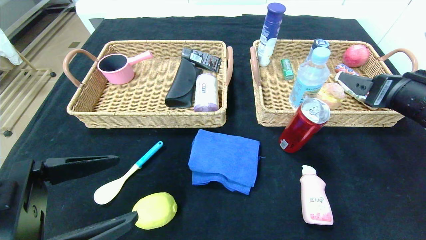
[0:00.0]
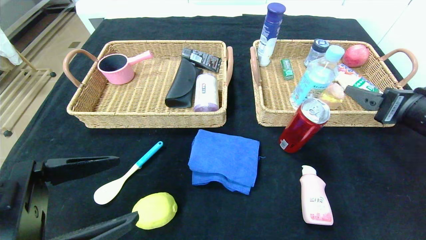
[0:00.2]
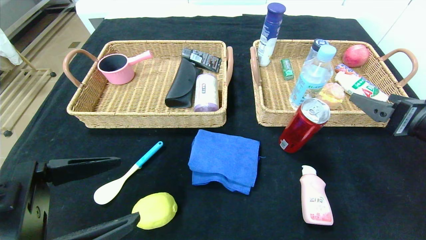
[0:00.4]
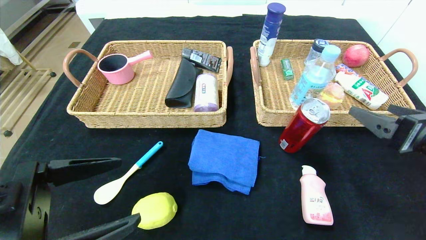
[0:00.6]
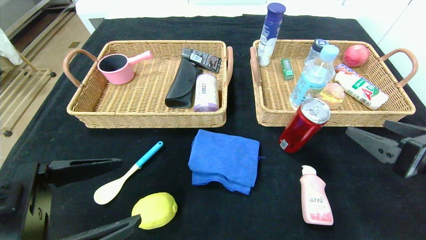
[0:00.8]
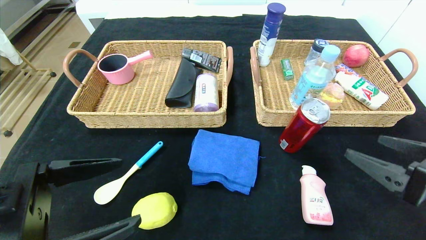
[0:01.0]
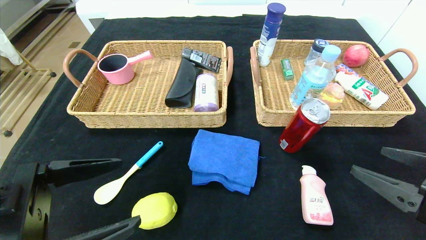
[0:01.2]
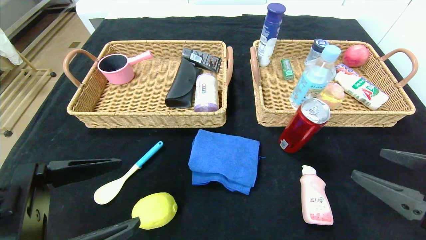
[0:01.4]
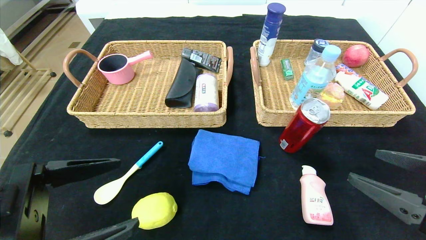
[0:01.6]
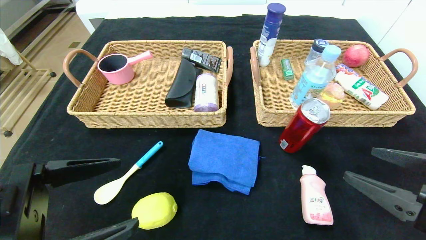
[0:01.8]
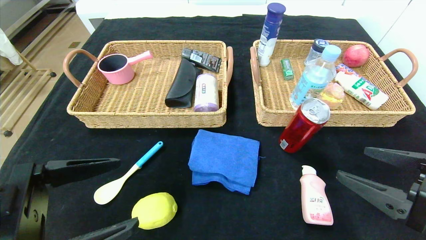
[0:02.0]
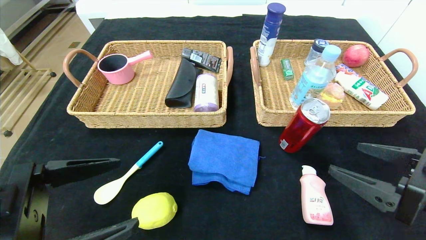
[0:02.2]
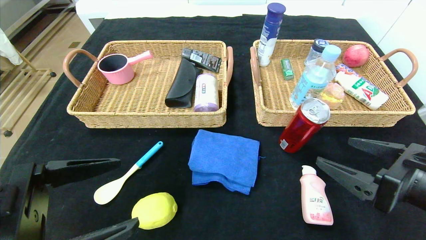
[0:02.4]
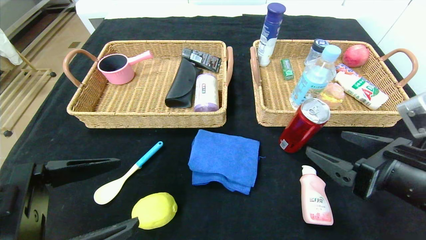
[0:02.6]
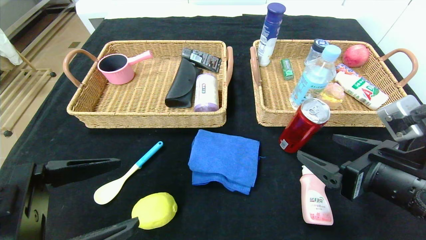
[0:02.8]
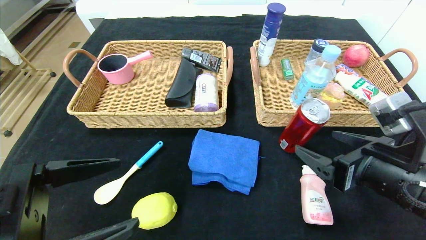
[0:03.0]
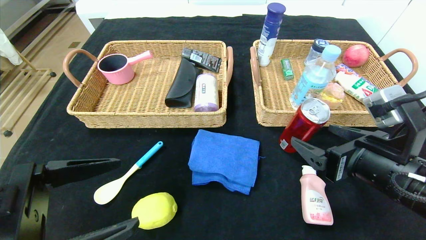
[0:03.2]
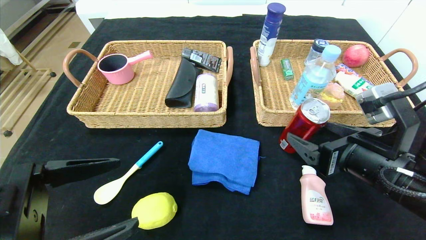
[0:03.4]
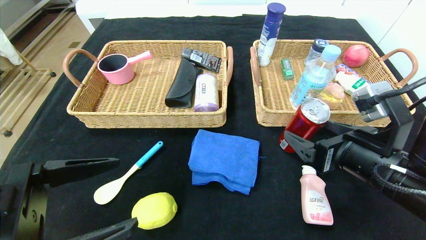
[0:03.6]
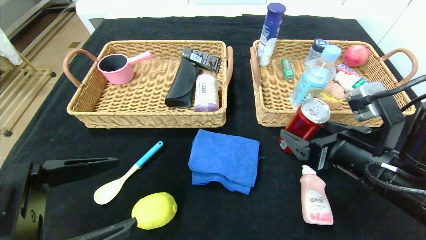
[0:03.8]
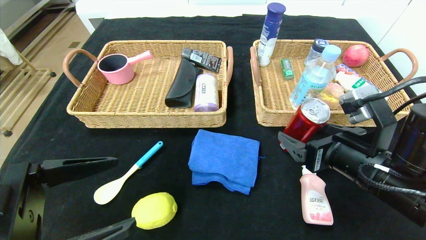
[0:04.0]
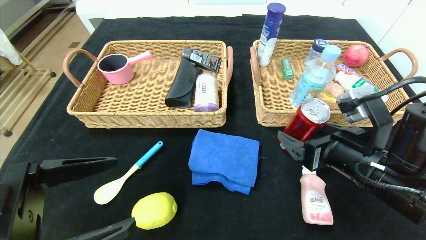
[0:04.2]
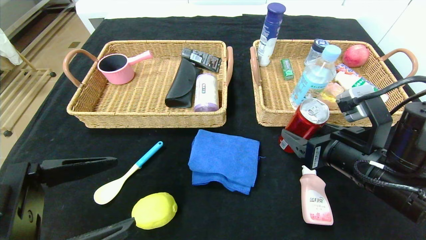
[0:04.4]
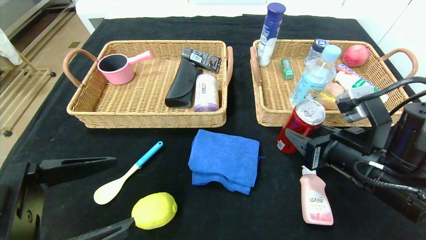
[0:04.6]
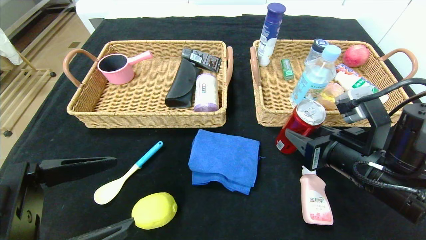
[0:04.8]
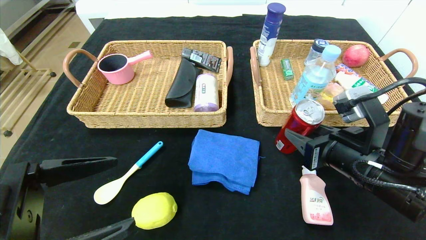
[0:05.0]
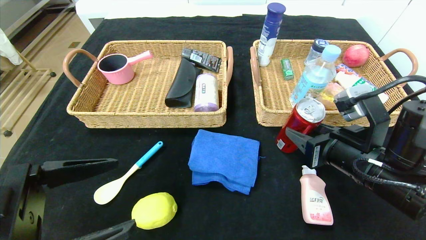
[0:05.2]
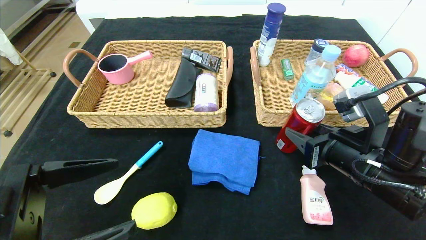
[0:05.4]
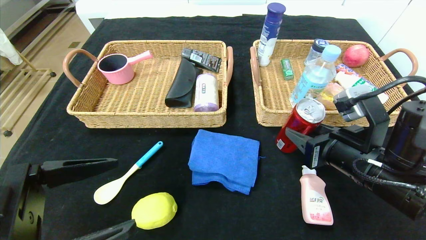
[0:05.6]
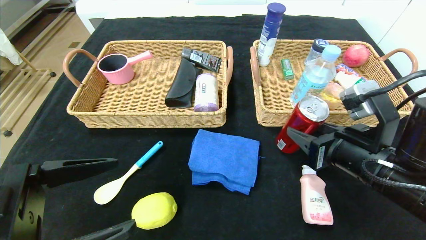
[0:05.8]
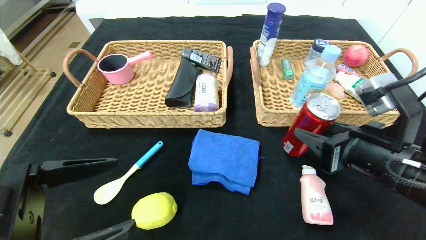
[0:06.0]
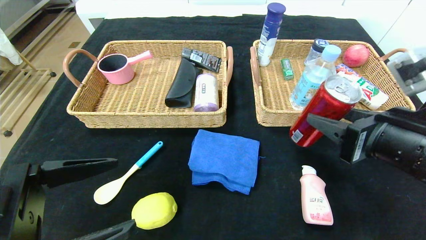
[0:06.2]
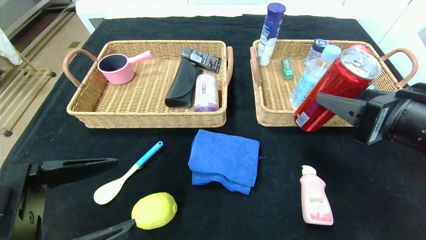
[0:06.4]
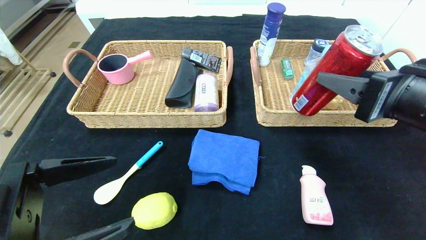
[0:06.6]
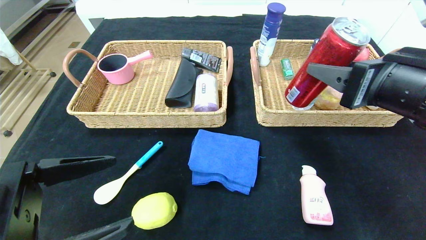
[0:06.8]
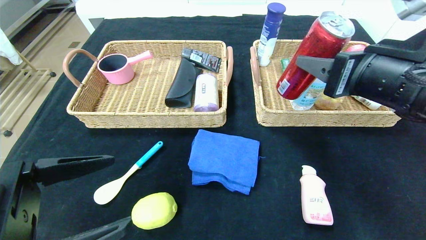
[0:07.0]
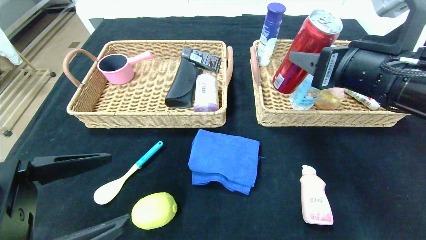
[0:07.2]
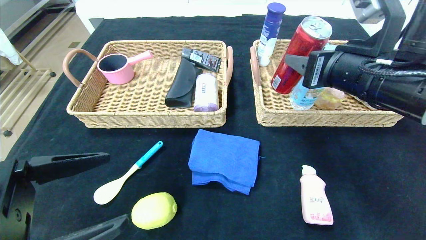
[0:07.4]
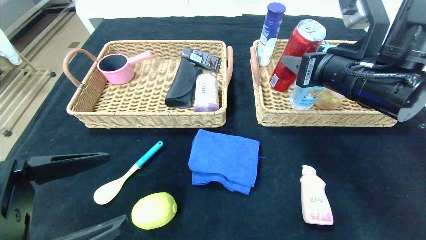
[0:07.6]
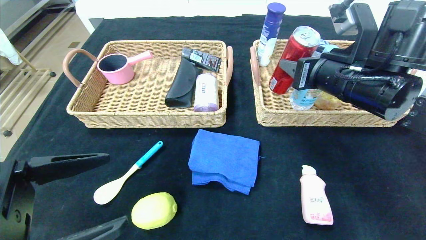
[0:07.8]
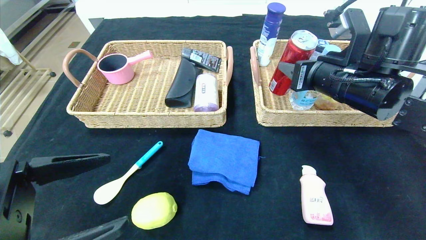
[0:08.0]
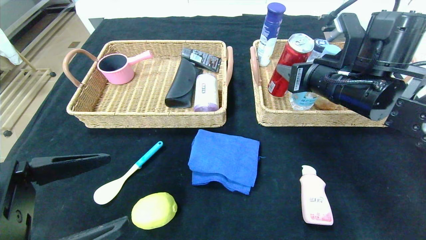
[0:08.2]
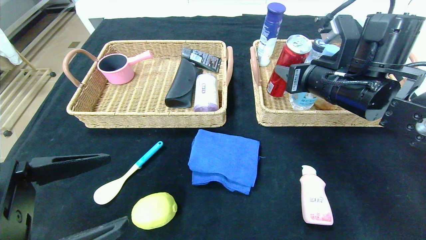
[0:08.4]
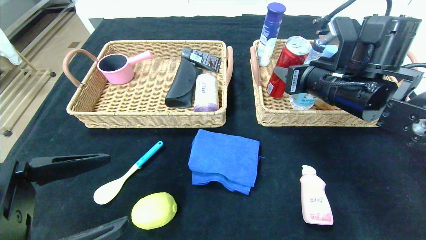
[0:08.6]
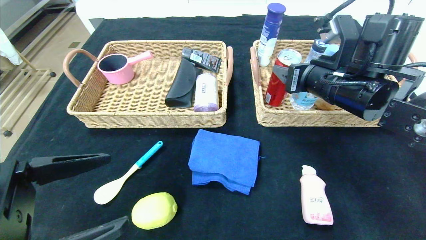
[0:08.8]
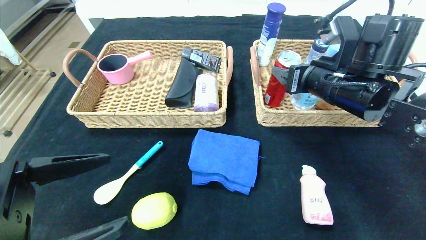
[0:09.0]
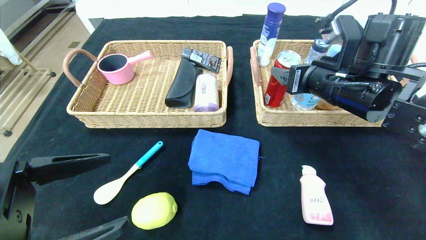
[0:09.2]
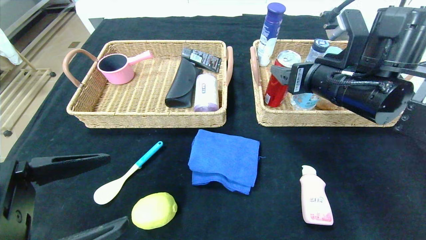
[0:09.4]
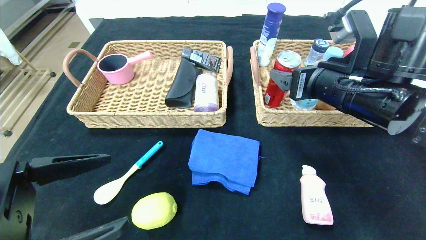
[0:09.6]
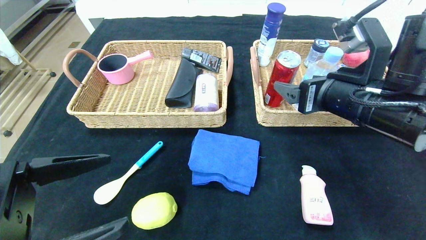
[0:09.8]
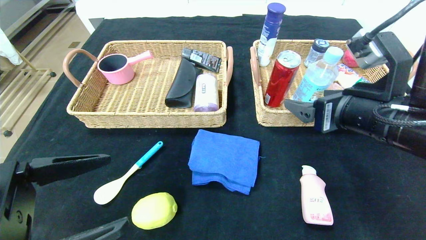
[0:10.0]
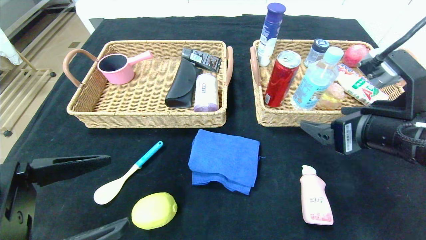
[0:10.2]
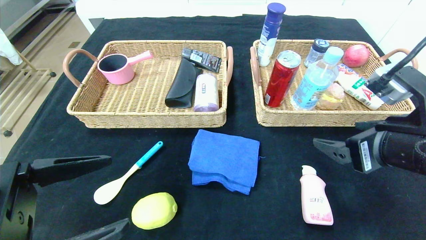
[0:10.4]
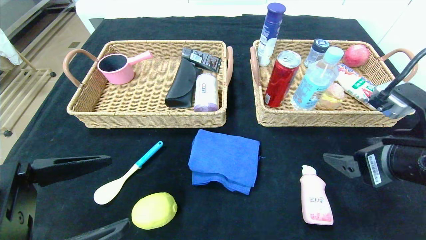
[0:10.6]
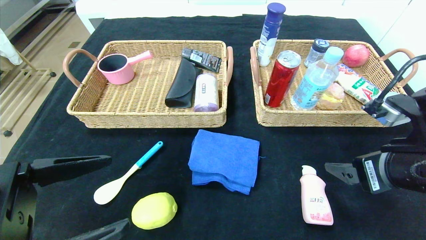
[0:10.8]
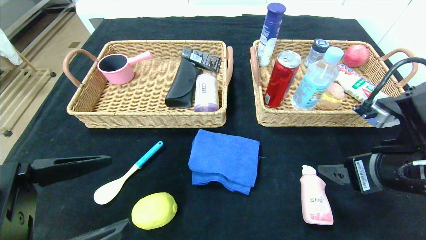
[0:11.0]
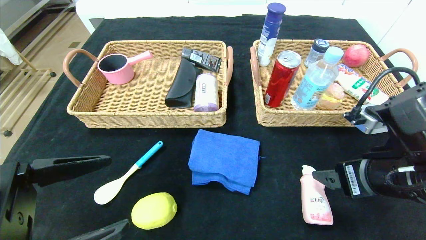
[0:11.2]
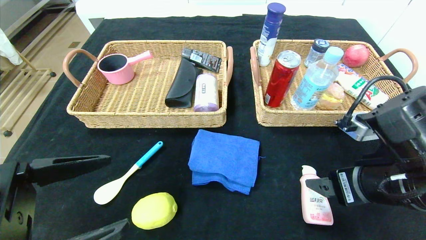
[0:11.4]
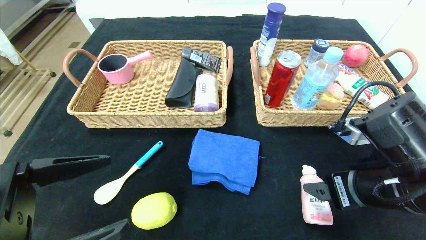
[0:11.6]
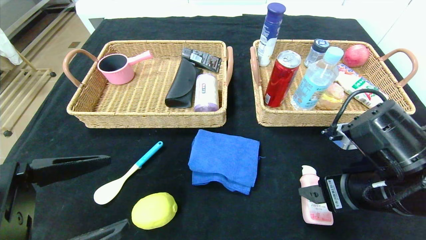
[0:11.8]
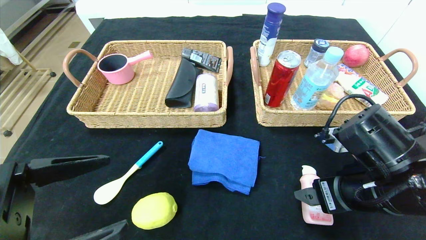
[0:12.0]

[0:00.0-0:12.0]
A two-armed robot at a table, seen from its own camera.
Step, 0:00.0 to 0:09.4: Grasp the canned cola and put it in the right basket.
0:00.0 to 0:01.6: The right gripper is displaced backward and downward by some 15 cm.
0:01.6 to 0:03.0: The right gripper travels to the left and forward by approximately 10 cm.
0:03.0 to 0:04.4: The right gripper closes up.
0:04.4 to 0:06.0: The right gripper closes.
0:06.0 to 0:07.6: The right gripper shifts approximately 10 cm forward and upward.
0:07.6 to 0:09.0: The right gripper opens up.
0:09.0 to 0:10.4: The right gripper moves backward, some 15 cm, and opens its fingers.
0:10.4 to 0:12.0: The right gripper goes some 5 cm downward.

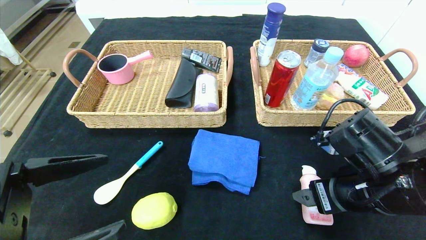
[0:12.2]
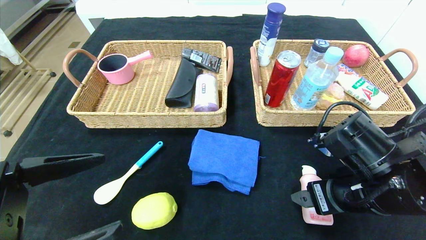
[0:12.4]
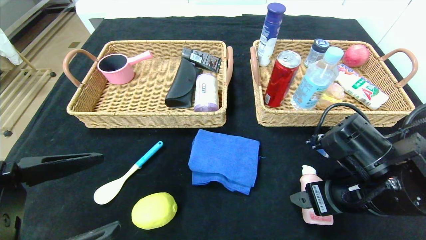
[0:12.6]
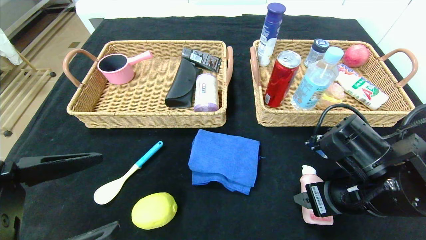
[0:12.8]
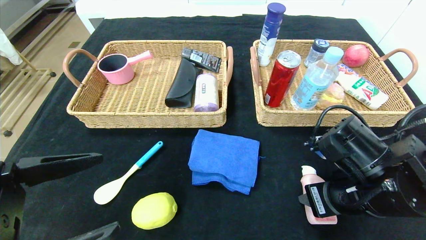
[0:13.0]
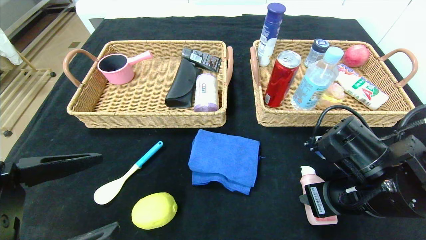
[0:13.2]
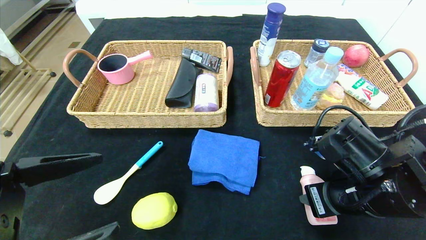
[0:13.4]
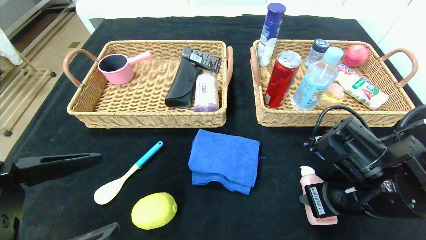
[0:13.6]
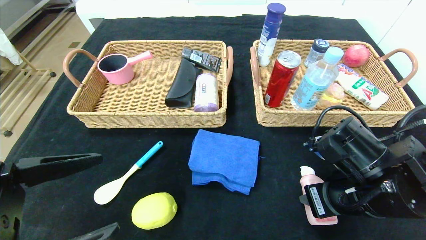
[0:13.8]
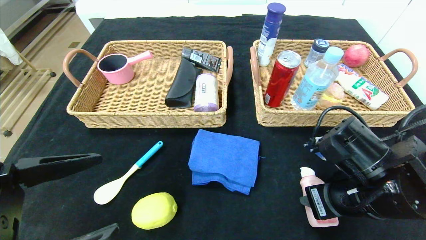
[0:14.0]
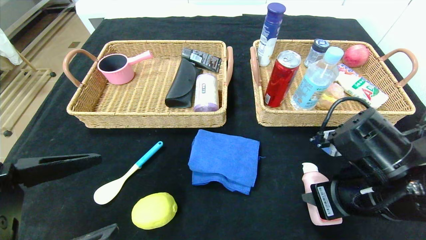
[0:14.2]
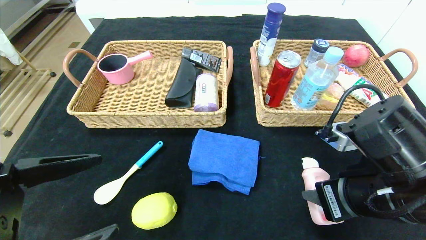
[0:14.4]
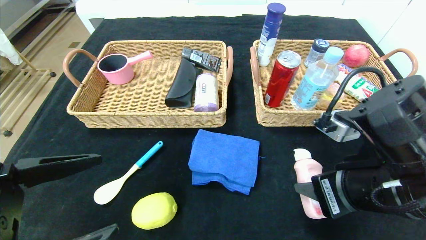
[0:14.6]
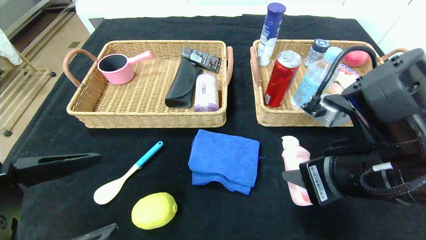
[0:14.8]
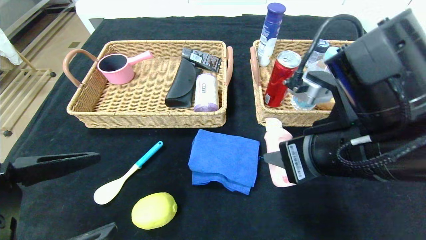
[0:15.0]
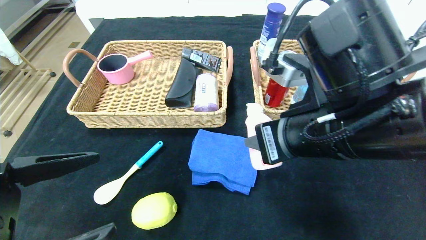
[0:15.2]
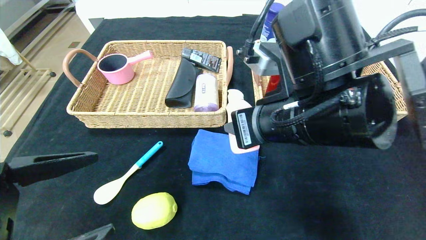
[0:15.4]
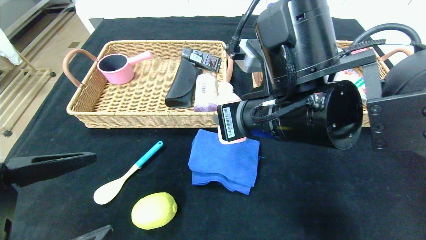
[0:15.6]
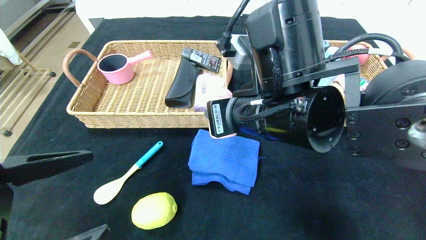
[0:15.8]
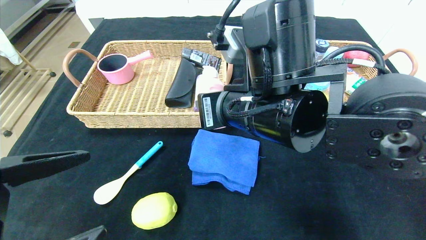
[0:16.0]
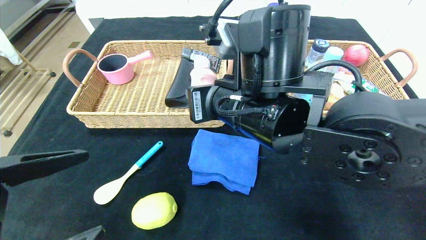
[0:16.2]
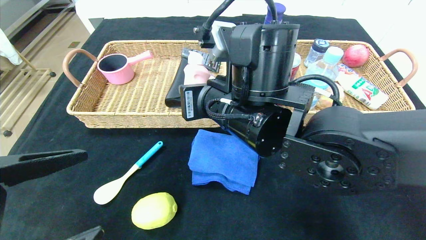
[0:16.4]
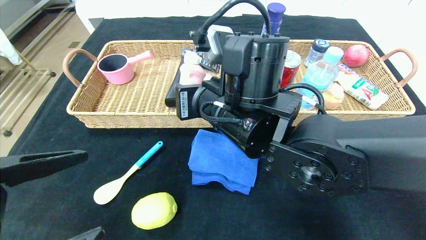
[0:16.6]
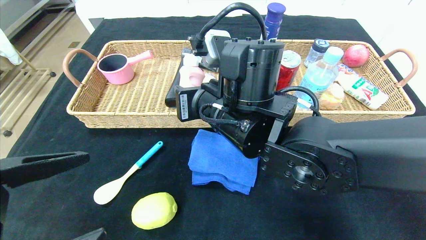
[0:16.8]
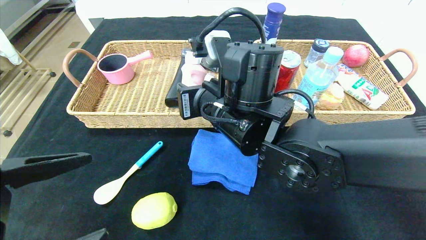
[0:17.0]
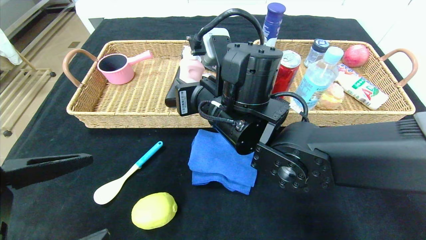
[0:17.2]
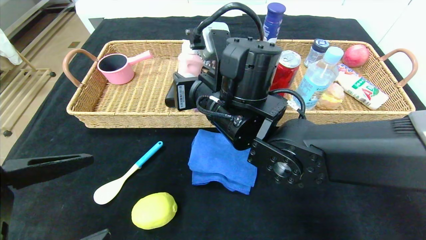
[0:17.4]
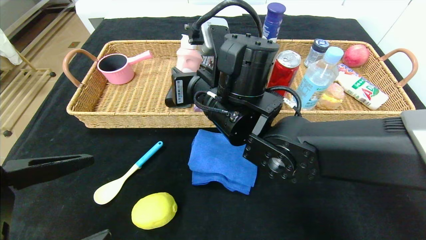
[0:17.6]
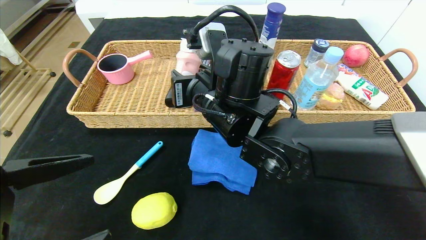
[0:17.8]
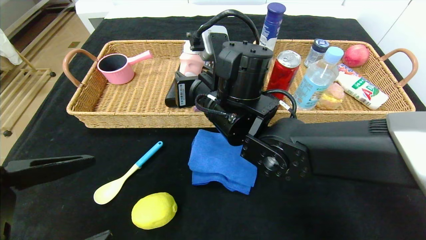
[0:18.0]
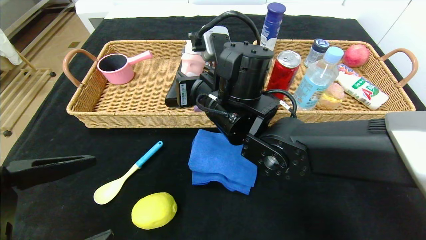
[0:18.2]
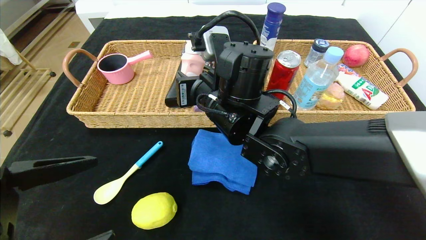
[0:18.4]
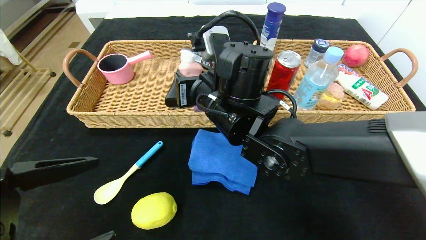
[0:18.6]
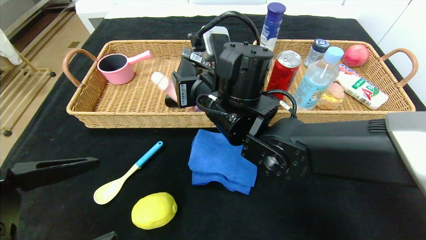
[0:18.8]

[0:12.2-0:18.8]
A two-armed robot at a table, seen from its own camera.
0:12.2 to 0:13.8: The right gripper closes its fingers.
0:13.8 to 0:15.4: The right gripper goes roughly 15 cm upward and to the left.
0:15.4 to 0:17.2: The right gripper is displaced to the left and forward by about 10 cm.
0:17.2 to 0:18.8: The right gripper opens up.
